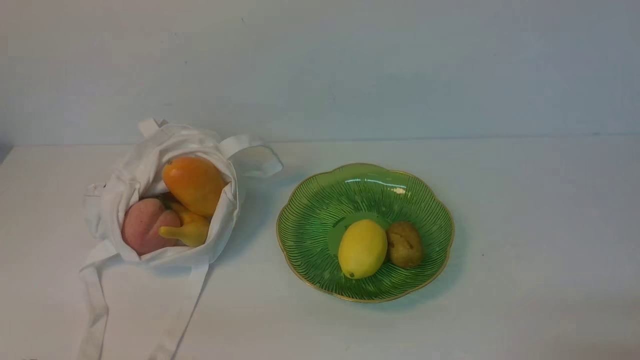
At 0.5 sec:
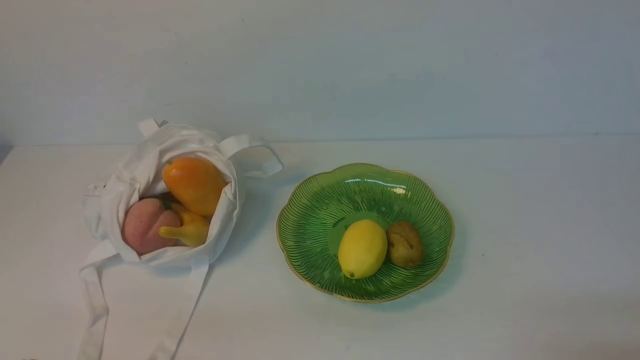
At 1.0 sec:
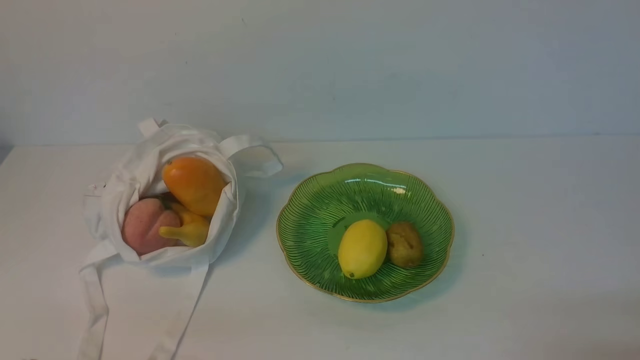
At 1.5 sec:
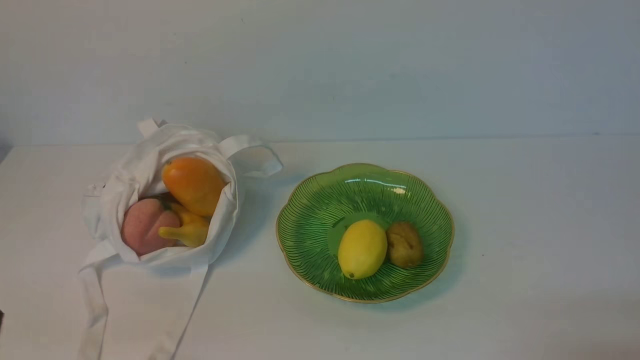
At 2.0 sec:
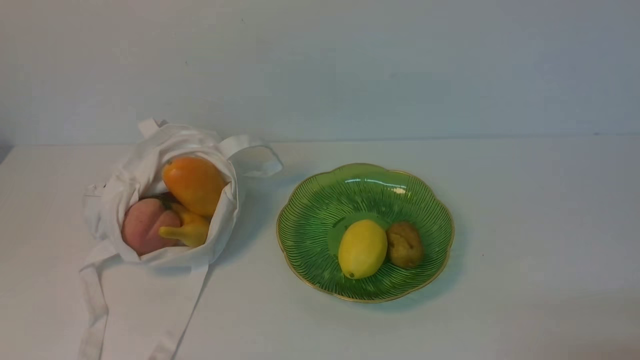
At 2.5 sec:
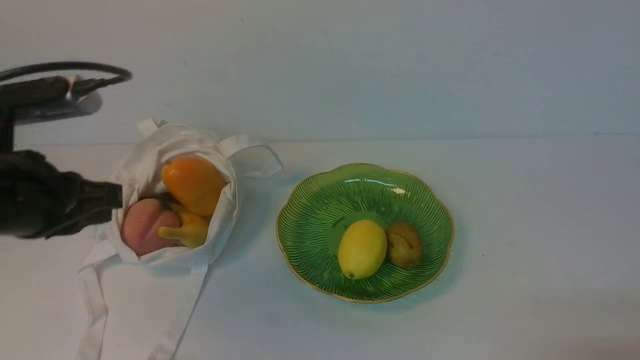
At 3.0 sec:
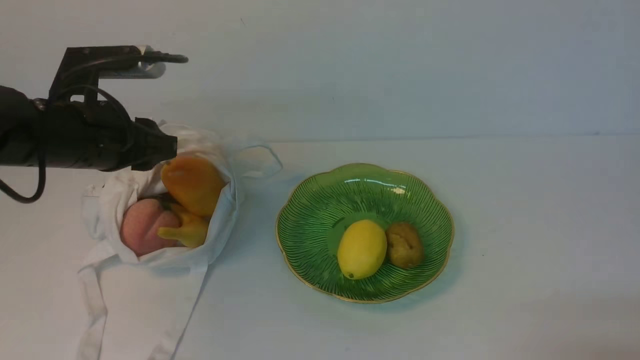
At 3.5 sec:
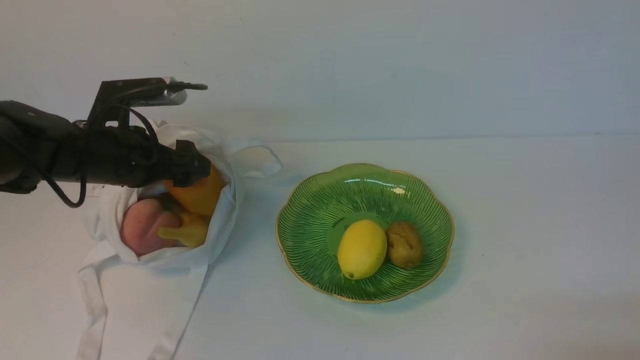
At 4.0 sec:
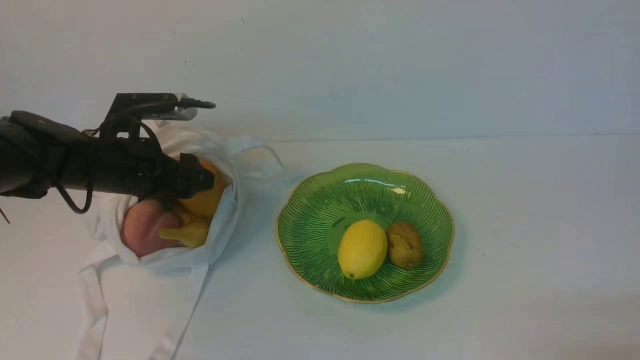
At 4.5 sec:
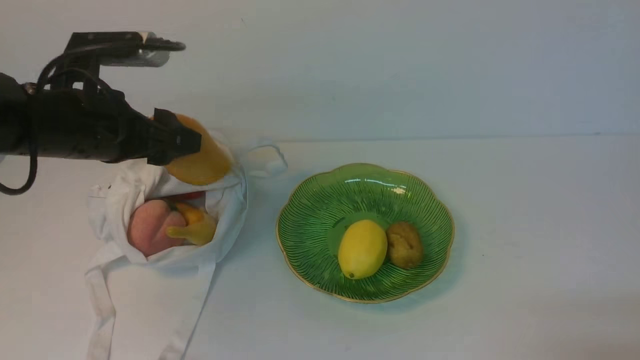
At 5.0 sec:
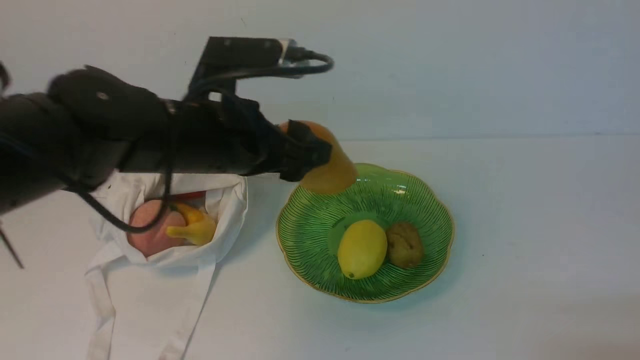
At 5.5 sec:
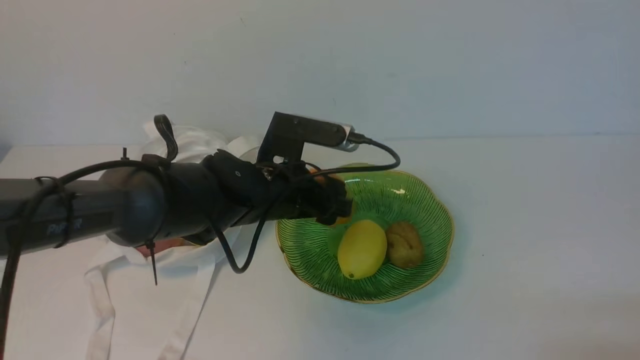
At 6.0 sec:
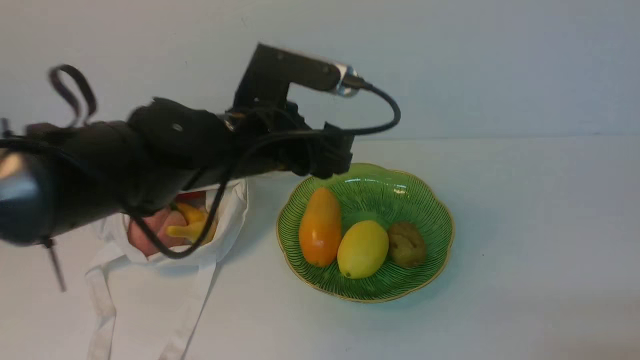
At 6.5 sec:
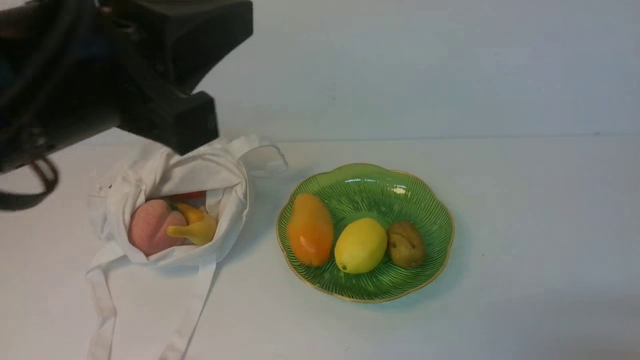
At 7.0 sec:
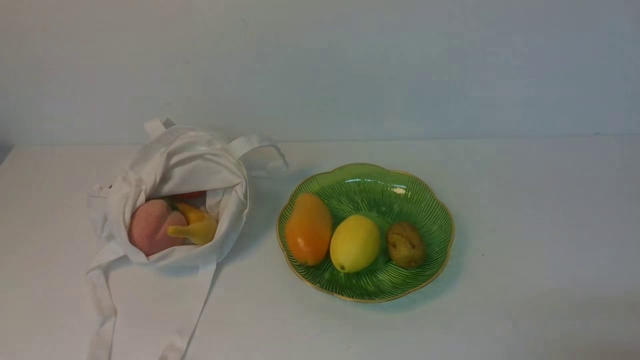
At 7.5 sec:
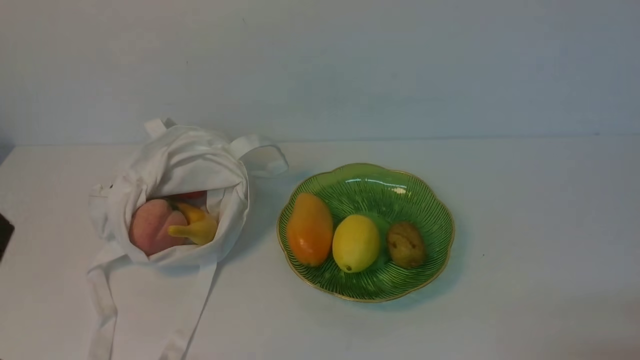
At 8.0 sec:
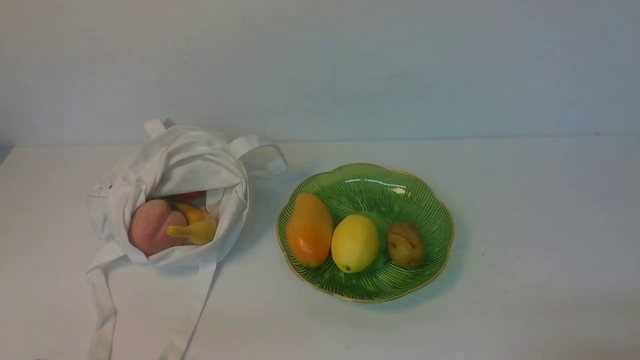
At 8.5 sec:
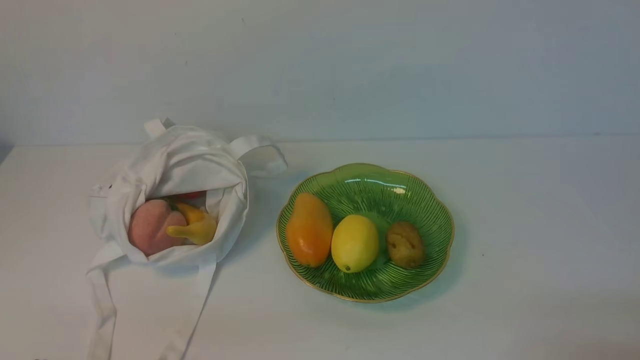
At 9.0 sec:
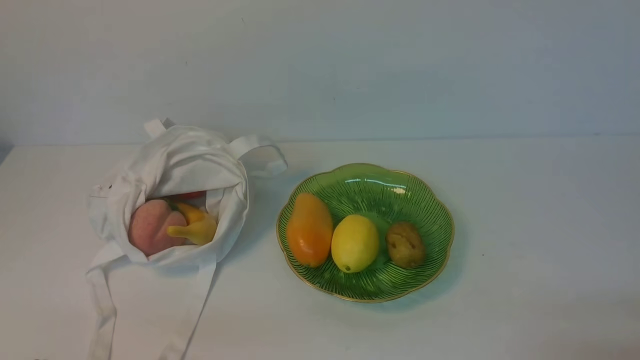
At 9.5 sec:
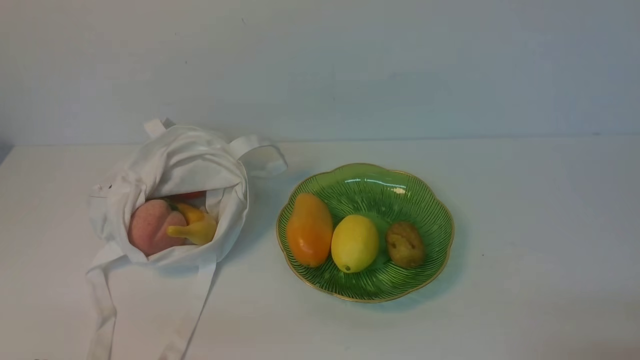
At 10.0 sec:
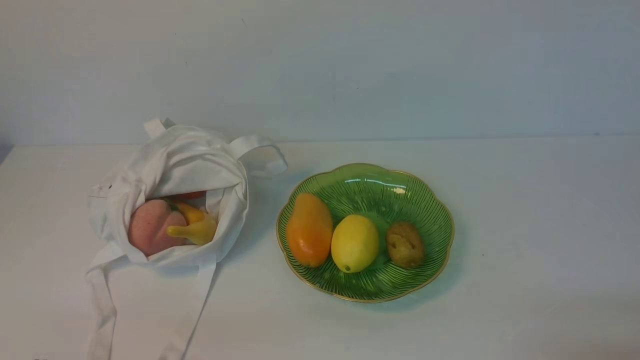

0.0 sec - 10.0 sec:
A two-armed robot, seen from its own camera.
Step, 0.0 sec - 4.0 sec: use the left arm to grab a mango from the bag.
Step, 4.5 sec - 5.5 sec: use the left arm to put the mango into the empty plate on the right.
2.0 sec - 4.0 sec: The left gripper travels forward by about 30 cm, and opens up.
4.0 sec - 6.0 sec: The left gripper shifts about 15 cm to the right.
6.0 sec - 8.0 sec: The left gripper goes some 35 cm backward and to the left, and closes up.

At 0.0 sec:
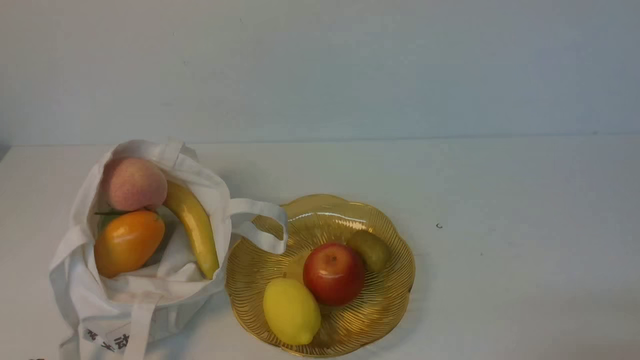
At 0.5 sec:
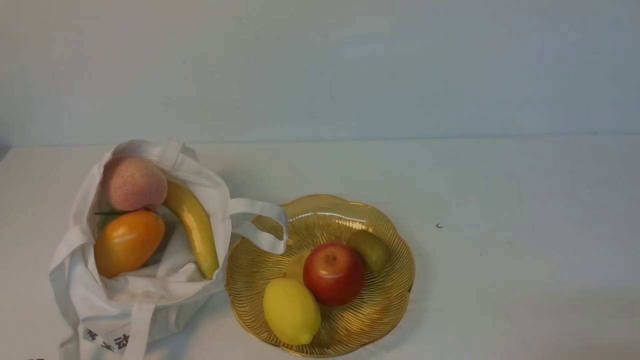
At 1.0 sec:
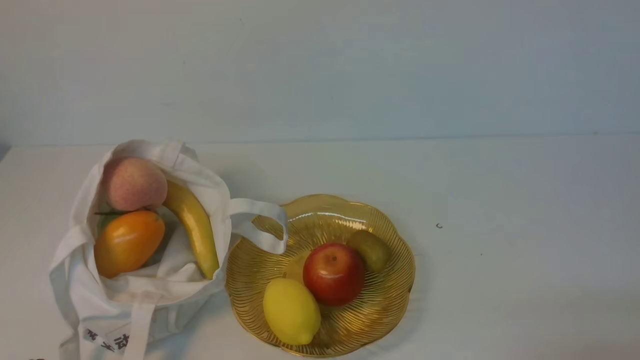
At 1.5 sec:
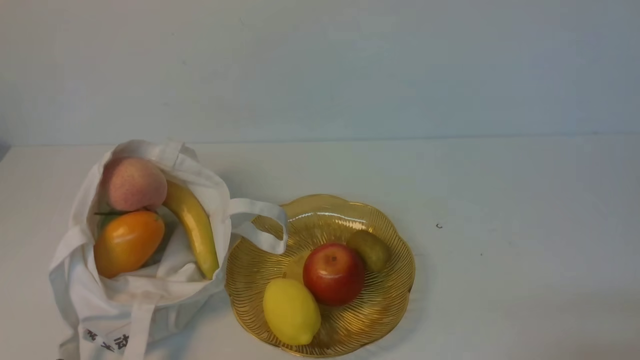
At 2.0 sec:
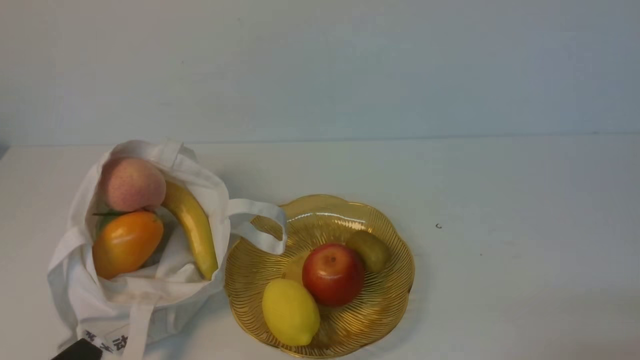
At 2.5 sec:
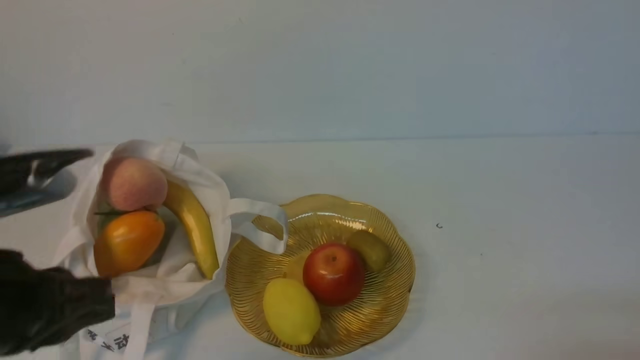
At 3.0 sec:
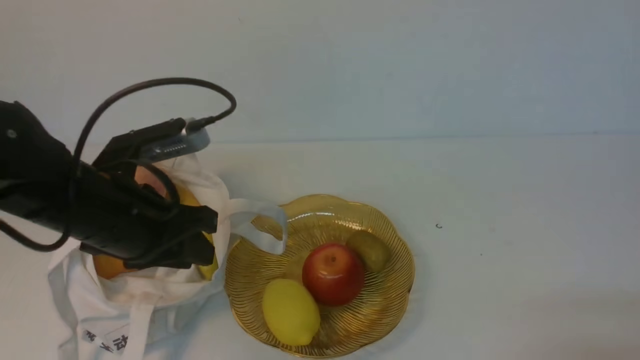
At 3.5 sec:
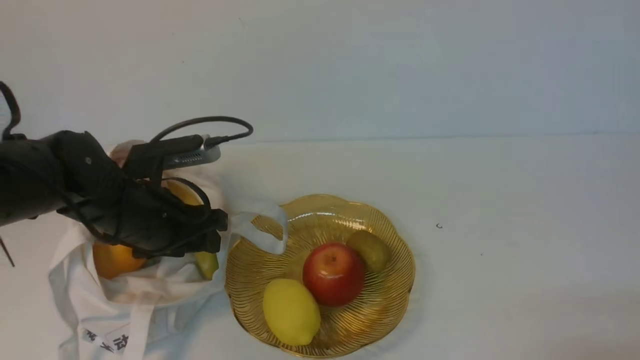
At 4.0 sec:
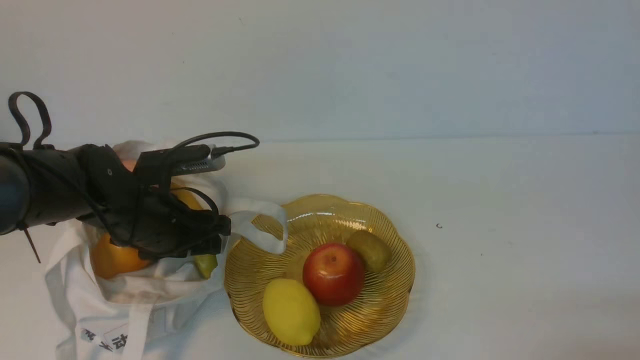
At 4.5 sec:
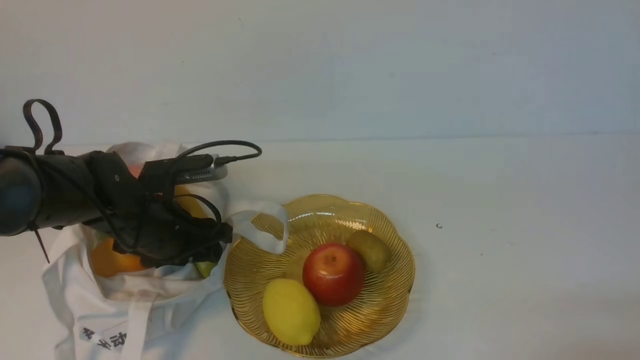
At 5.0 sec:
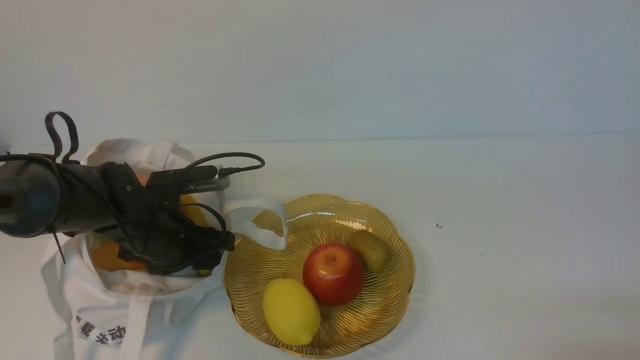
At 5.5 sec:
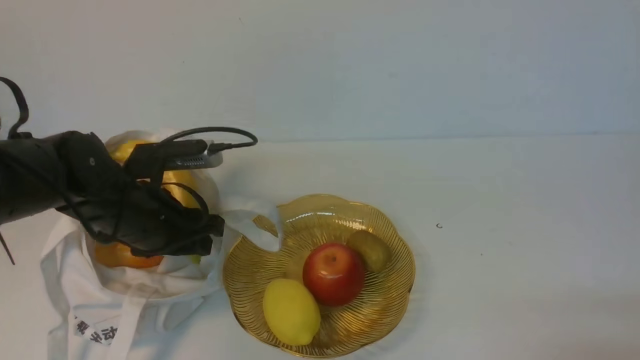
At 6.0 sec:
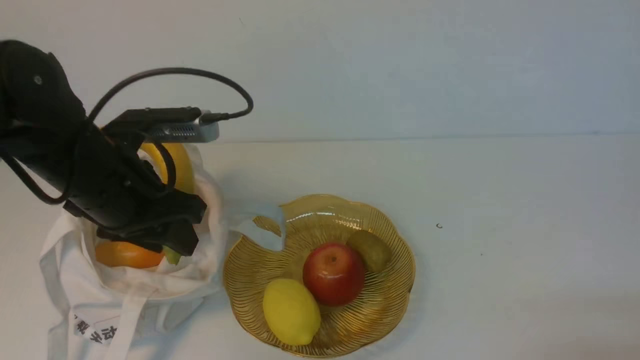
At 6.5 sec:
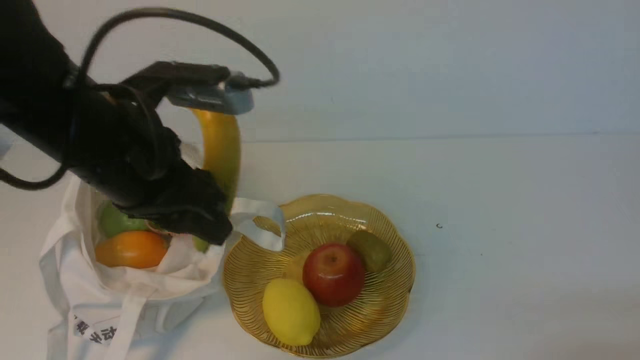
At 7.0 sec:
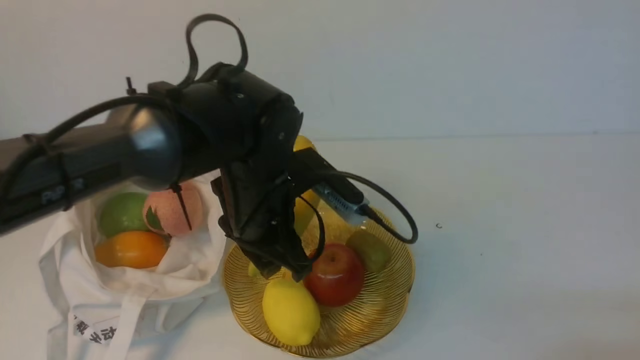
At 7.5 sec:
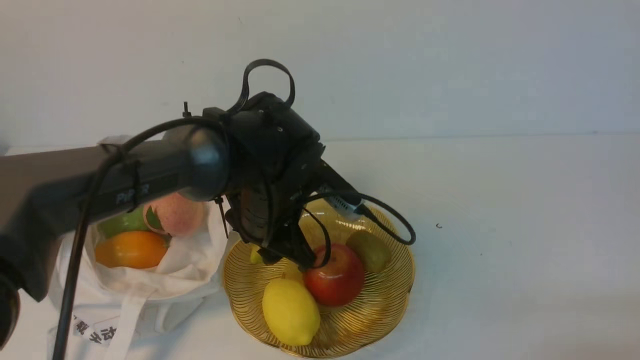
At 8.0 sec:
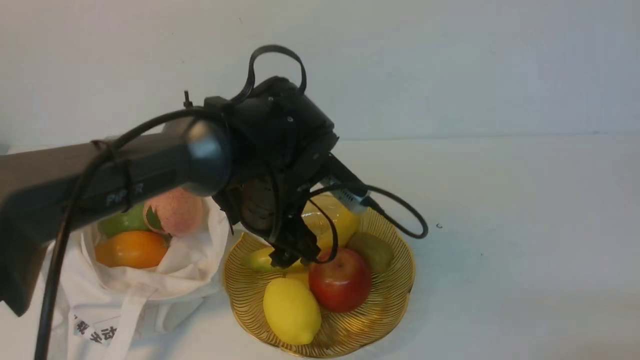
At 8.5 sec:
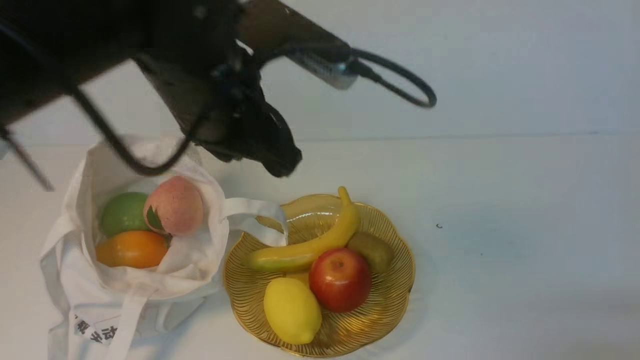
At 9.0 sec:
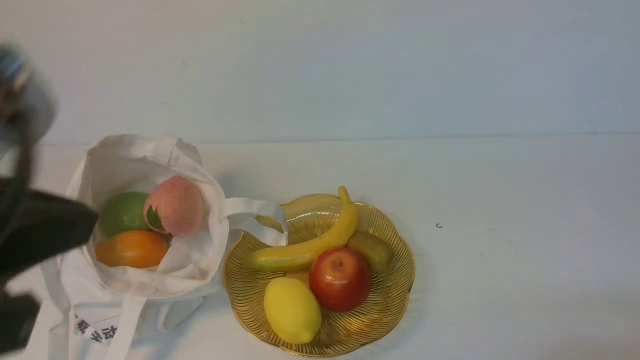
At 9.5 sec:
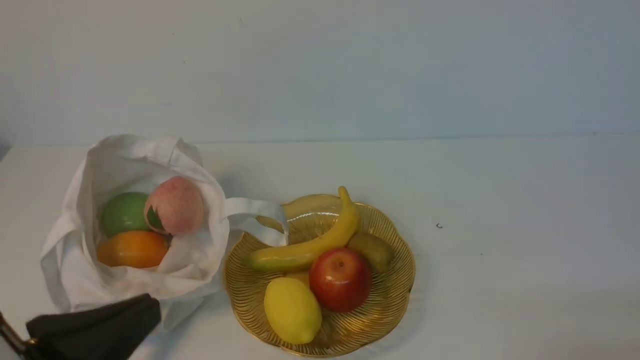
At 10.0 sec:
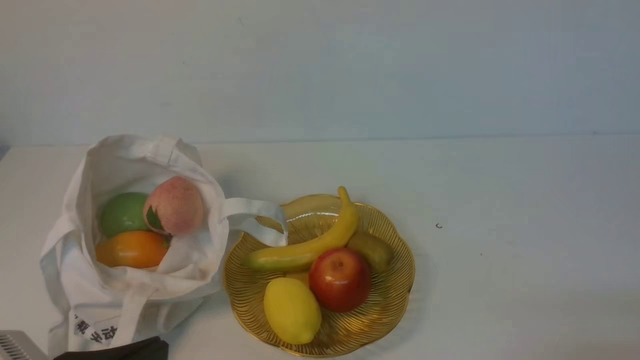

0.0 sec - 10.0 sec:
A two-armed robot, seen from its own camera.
Step, 0.0 sec - 5.5 sec: use the left arm to grab a banana from the bag.
Step, 6.0 sec - 7.5 sec: use the left arm to put the banana into the empty plate on the right.
2.0 sec - 4.0 sec: The left gripper is displaced forward by about 30 cm, and opens.
4.0 sec - 6.0 sec: The left gripper heads upward, covering some 10 cm.
6.0 sec - 8.0 sec: The left gripper is displaced to the right by roughly 15 cm, and opens up.
8.0 sec - 10.0 sec: The left gripper heads backward and to the left, covering approximately 30 cm, and closes.
